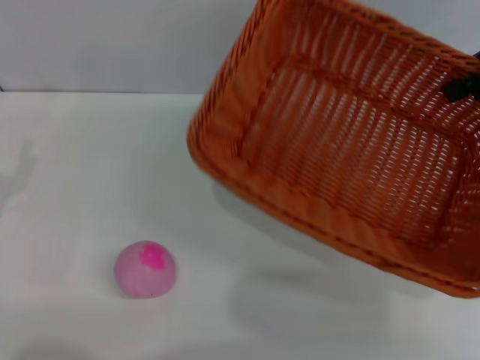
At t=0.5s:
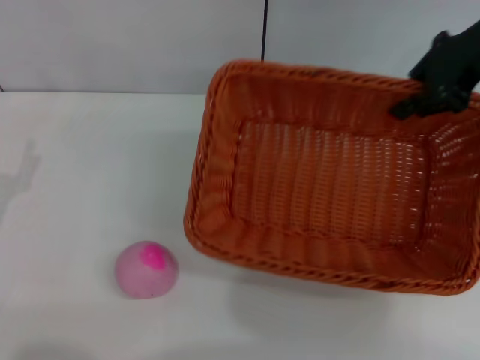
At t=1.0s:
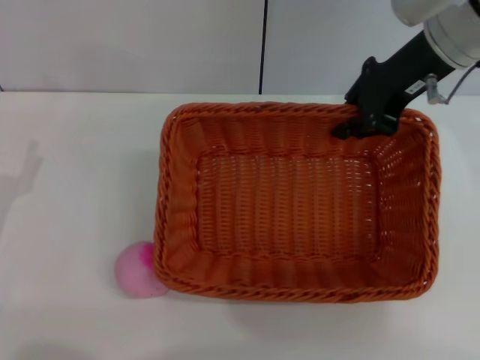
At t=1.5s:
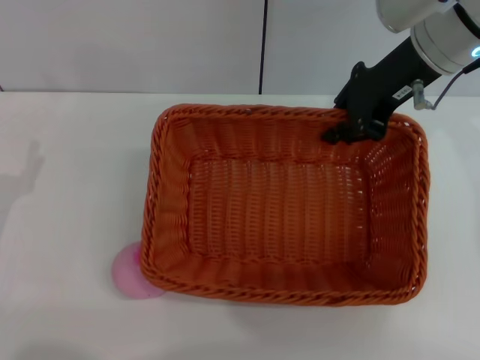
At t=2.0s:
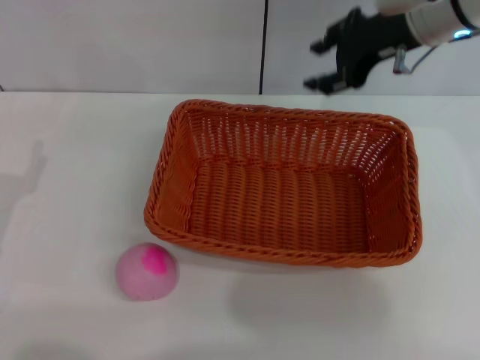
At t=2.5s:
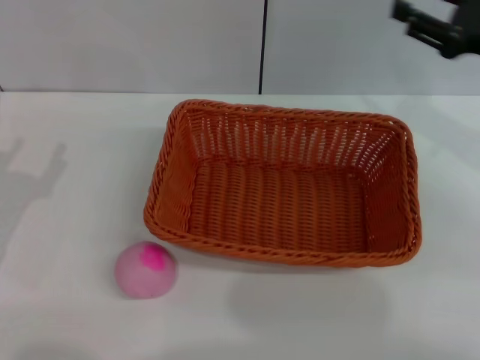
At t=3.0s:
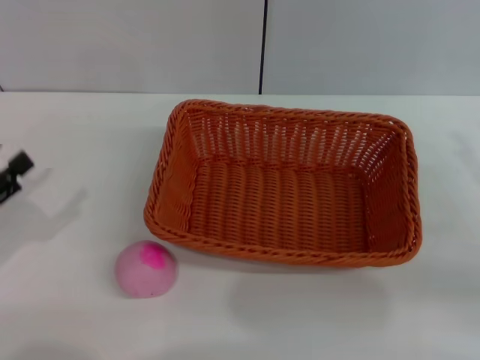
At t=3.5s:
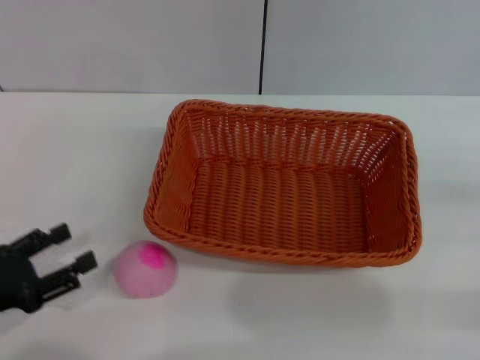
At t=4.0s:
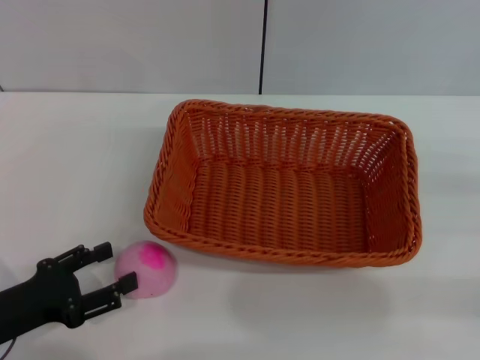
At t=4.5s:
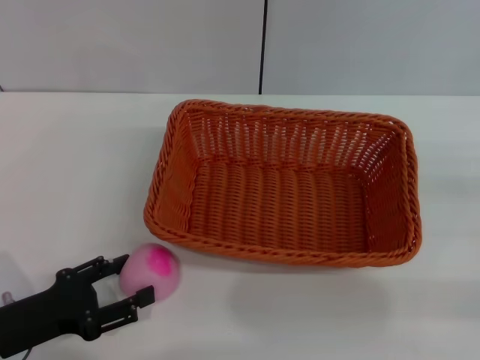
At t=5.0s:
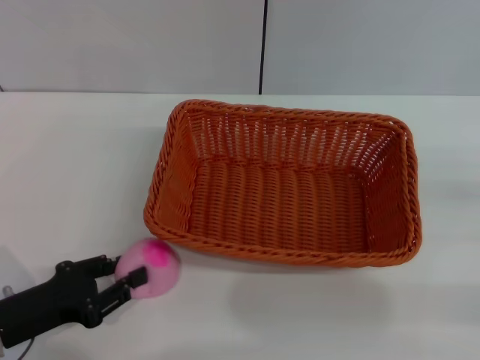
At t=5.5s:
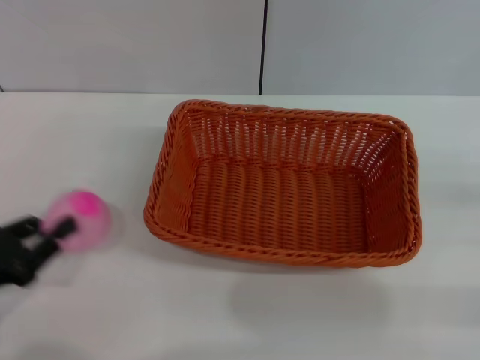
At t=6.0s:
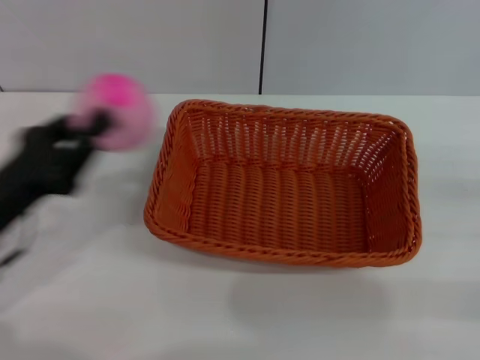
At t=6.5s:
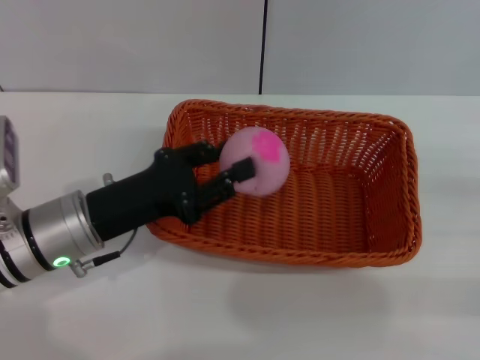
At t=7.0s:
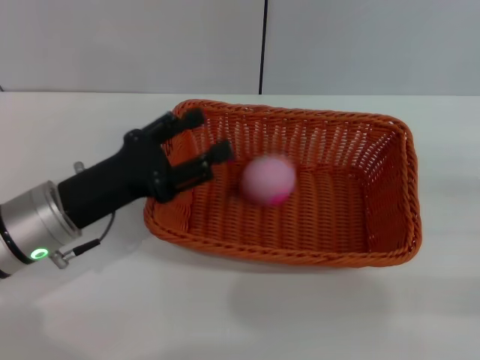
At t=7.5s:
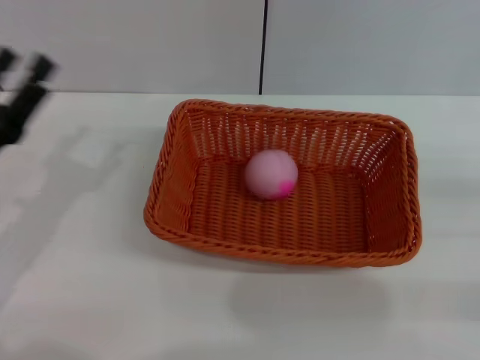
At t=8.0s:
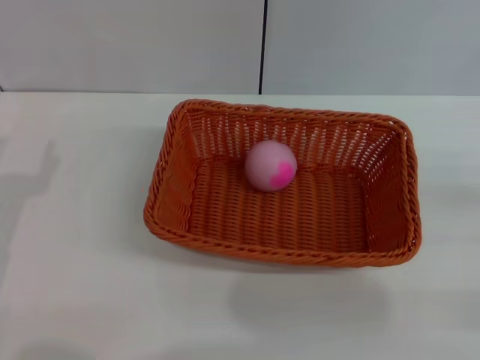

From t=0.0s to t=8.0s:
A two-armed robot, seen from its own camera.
Step, from t=0.0s to t=1.5s: Place the light basket in the center of view with the right gripper.
Step, from t=2.0s to t=5.0s: Pick up the peach with the left gripper.
Step, from t=5.5s to t=6.5s: Place the peach into the basket with the left gripper.
From t=0.0s to t=2.0s: The right gripper goes about 15 cm to the left, downward and forward, and opens.
From t=2.0s to t=4.0s: The right gripper is displaced to the right, backward and downward by roughly 35 cm.
From t=4.0s to t=6.0s: The left gripper moves forward and upward, approximately 10 cm, and closes.
From t=6.0s to t=8.0s: The left gripper moves some 5 cm, and opens up.
